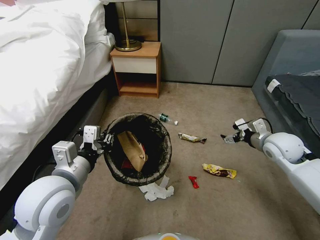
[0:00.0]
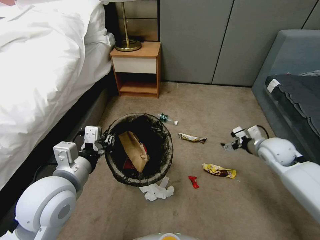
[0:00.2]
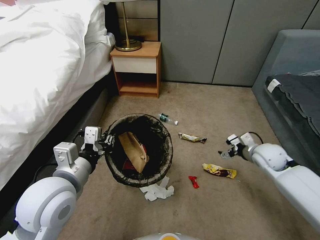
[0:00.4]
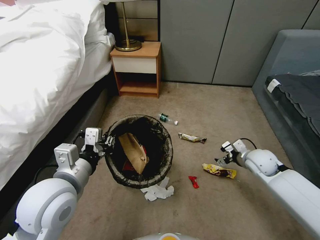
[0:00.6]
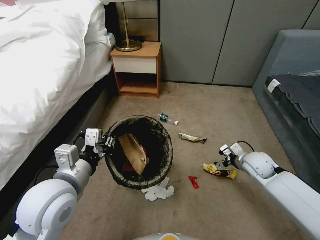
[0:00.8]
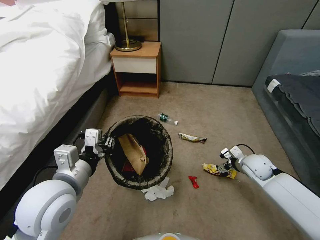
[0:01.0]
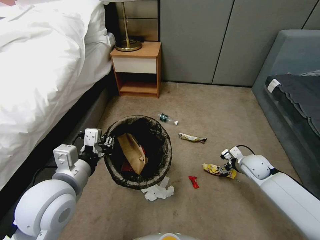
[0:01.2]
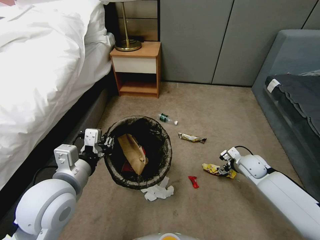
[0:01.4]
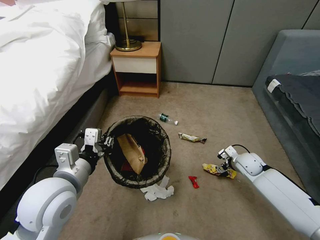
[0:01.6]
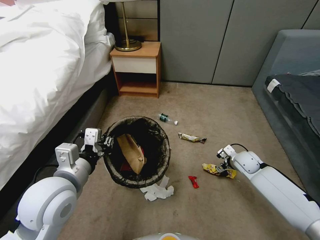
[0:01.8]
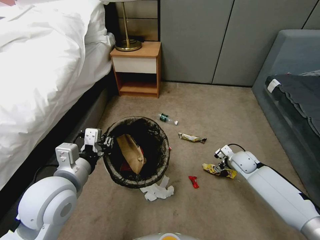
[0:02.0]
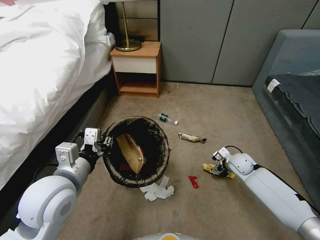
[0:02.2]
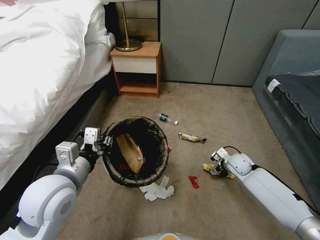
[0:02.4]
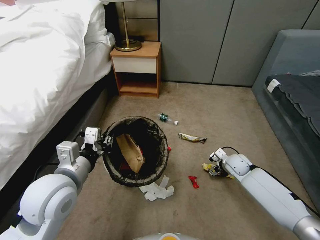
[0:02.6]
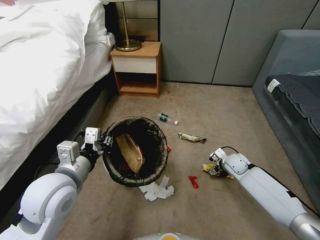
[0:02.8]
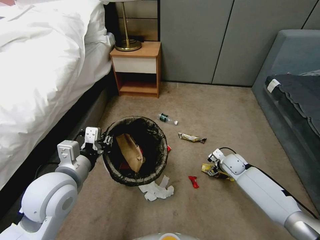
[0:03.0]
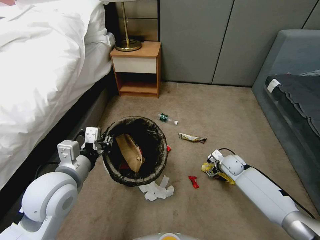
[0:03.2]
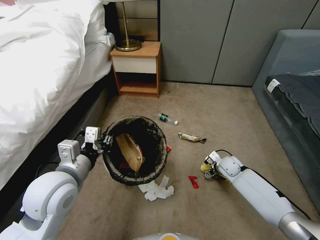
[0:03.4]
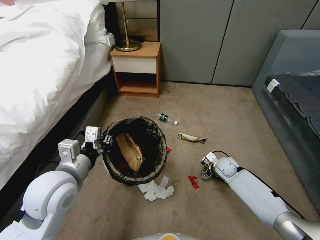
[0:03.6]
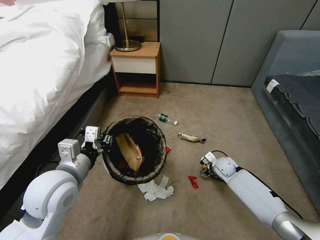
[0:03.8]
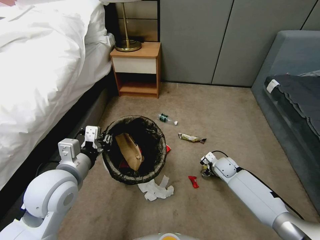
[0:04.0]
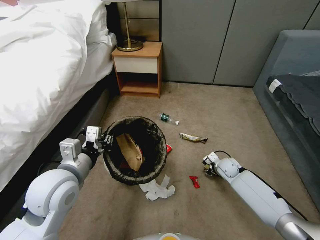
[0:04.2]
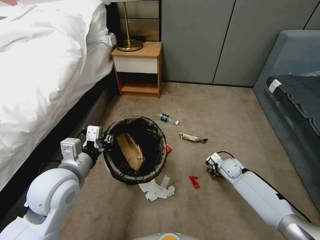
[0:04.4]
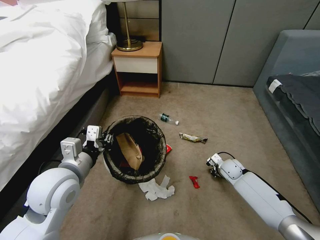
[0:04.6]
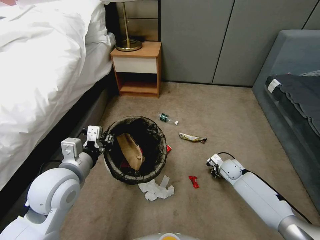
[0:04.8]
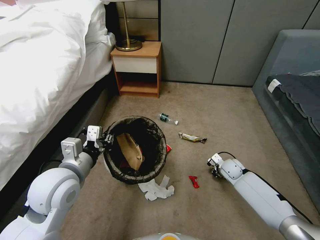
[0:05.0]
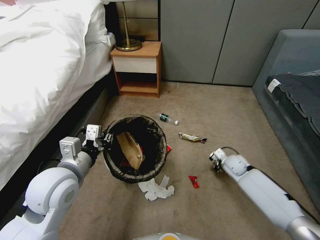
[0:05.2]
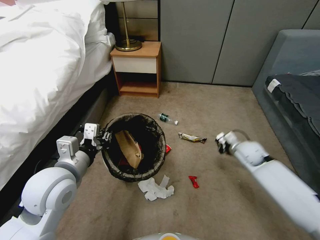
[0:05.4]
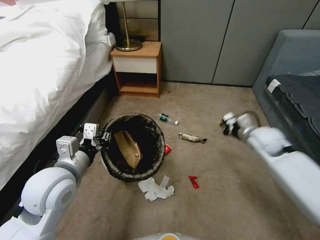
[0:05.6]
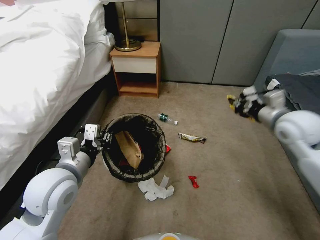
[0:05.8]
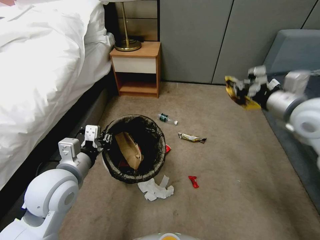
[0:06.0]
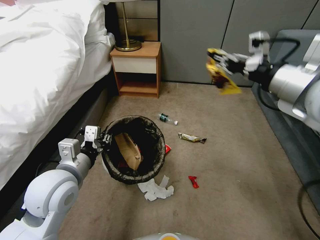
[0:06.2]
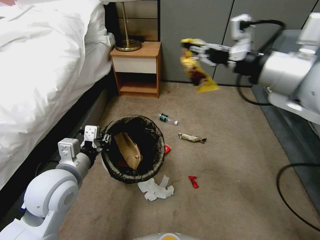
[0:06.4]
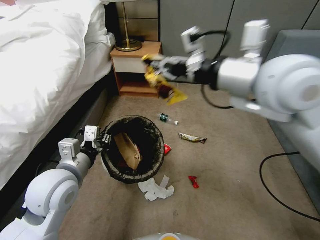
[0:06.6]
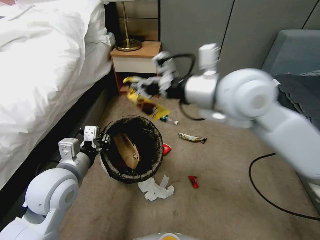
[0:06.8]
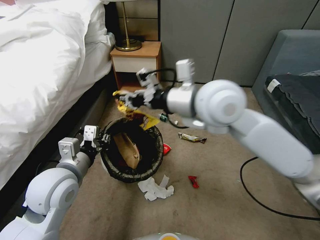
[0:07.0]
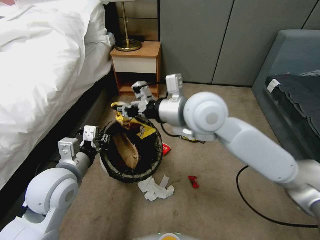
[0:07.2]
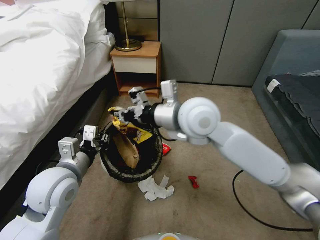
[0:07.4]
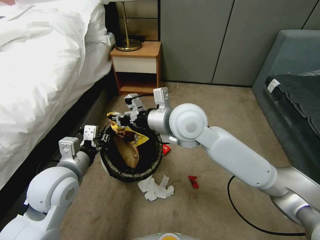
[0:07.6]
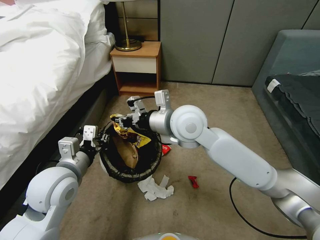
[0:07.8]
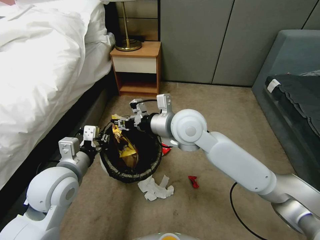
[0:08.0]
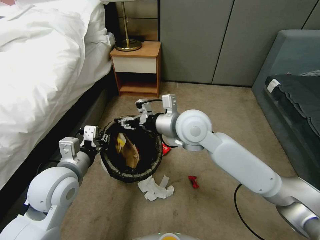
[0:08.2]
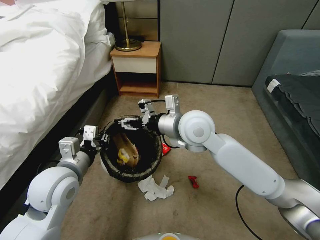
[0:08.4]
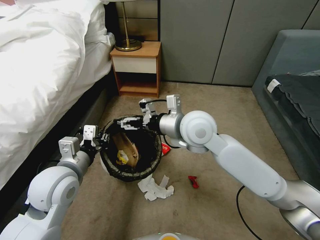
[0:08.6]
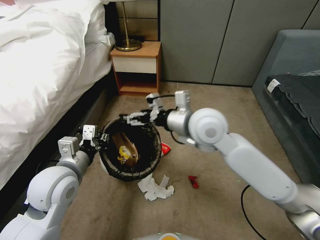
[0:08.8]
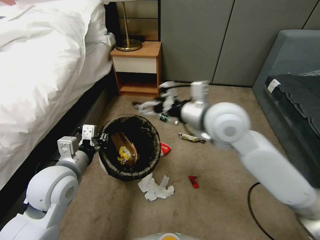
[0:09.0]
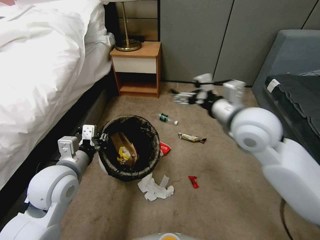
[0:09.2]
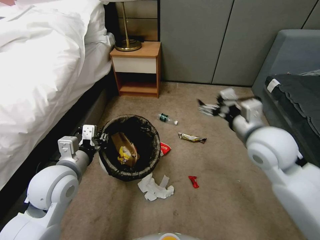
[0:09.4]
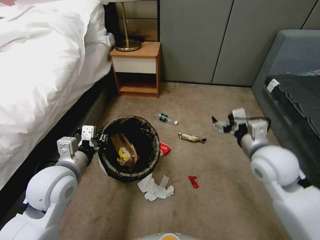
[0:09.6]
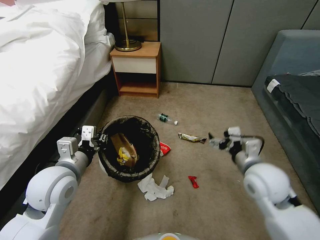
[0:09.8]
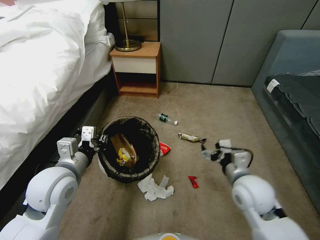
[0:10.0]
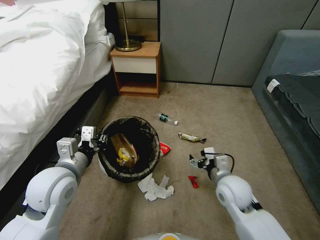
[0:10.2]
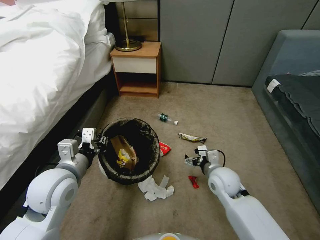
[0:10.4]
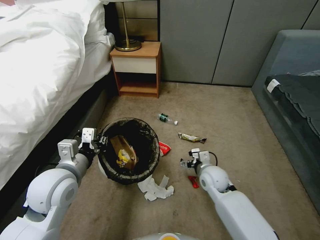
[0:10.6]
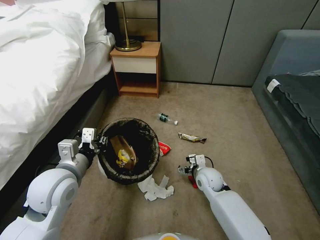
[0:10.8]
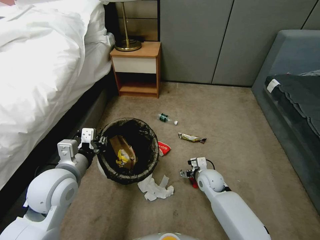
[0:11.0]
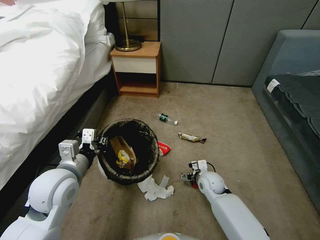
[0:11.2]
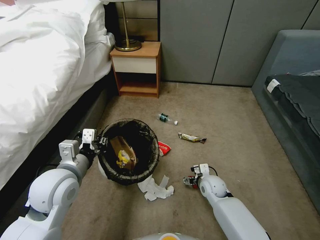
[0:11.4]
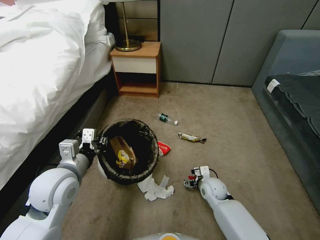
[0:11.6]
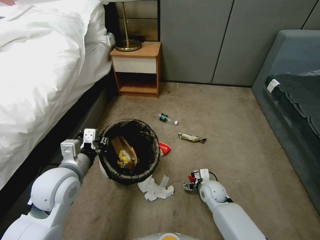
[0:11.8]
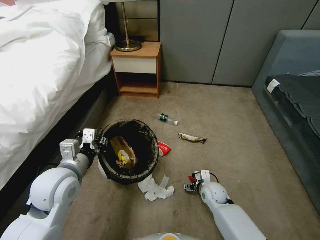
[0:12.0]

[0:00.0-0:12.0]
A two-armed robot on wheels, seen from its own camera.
Task of the whole recording: Pick up the trash bin, then pick up the garbage from the floor and place it into the trash bin.
0:00.0 to 0:01.6: The right gripper goes some 15 cm downward.
0:01.6 to 0:03.0: The right gripper shifts by some 5 cm.
0:03.0 to 0:04.4: The right gripper closes its fingers.
0:04.4 to 0:06.0: The right gripper moves upward, some 40 cm.
0:06.0 to 0:07.6: The right gripper travels to the left by approximately 30 cm.
0:07.6 to 0:09.0: The right gripper is displaced to the right by about 10 cm, and opens up.
0:09.0 to 0:10.4: The right gripper heads downward, covering roughly 25 cm.
0:10.4 to 0:12.0: The right gripper is displaced downward by roughly 15 cm.

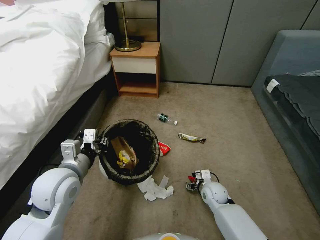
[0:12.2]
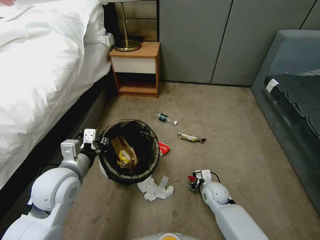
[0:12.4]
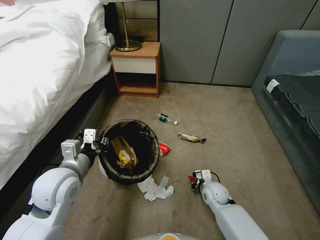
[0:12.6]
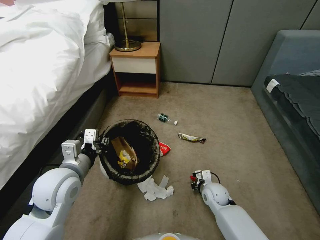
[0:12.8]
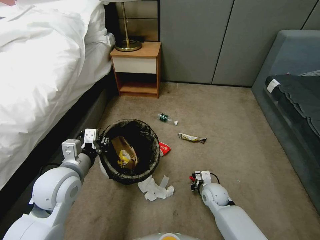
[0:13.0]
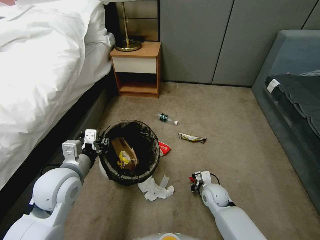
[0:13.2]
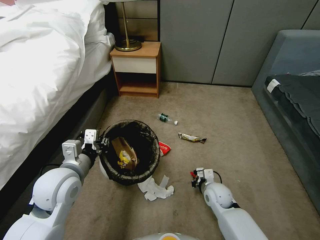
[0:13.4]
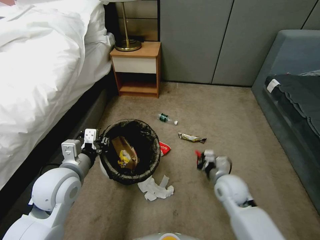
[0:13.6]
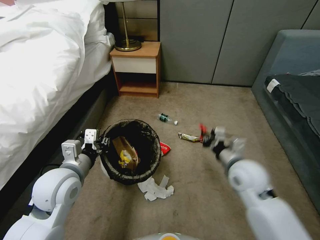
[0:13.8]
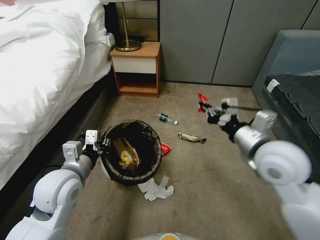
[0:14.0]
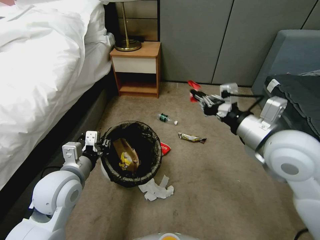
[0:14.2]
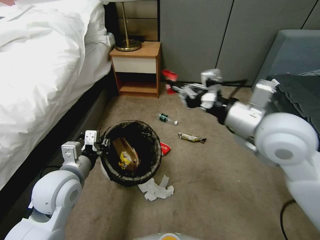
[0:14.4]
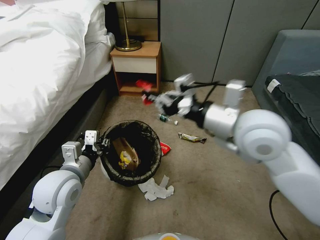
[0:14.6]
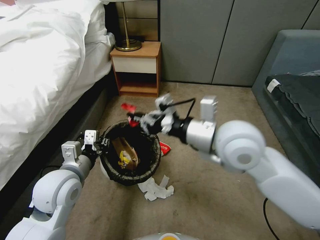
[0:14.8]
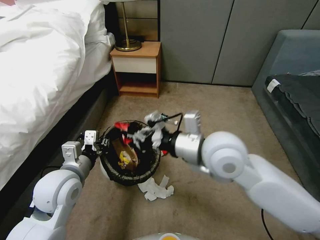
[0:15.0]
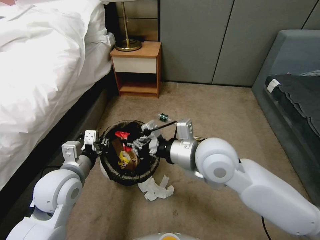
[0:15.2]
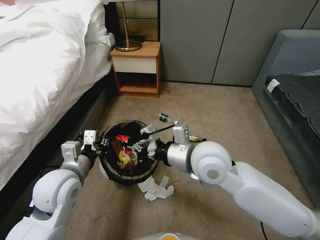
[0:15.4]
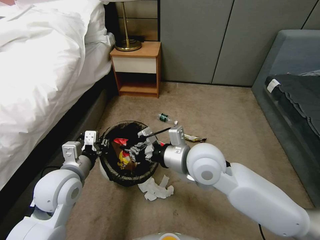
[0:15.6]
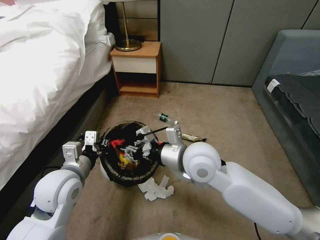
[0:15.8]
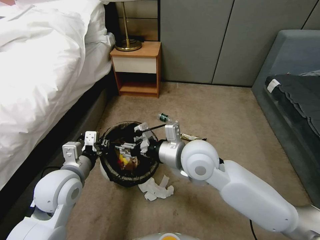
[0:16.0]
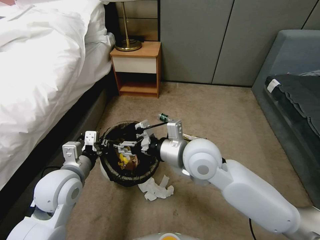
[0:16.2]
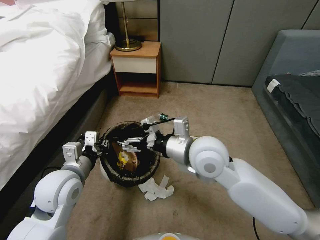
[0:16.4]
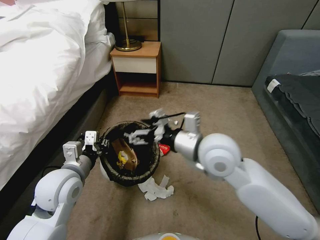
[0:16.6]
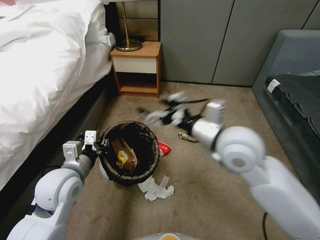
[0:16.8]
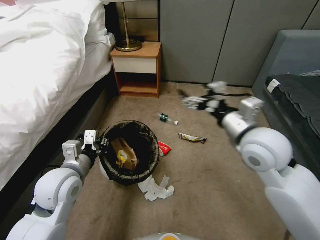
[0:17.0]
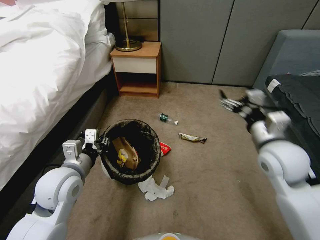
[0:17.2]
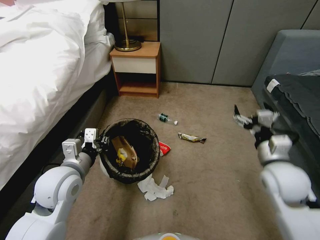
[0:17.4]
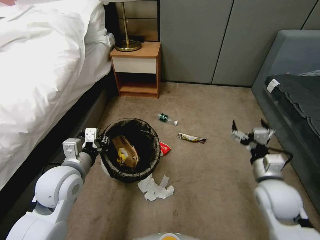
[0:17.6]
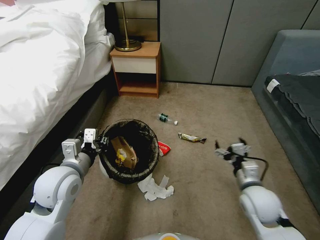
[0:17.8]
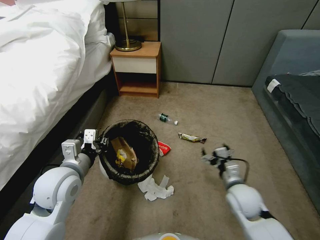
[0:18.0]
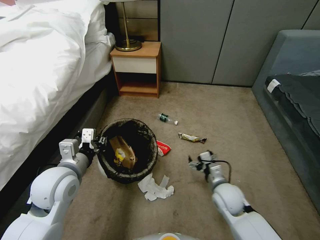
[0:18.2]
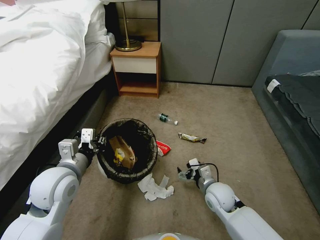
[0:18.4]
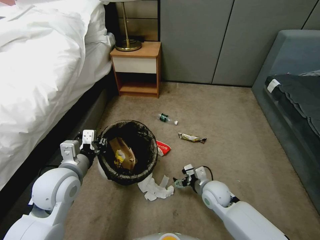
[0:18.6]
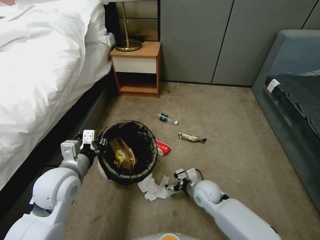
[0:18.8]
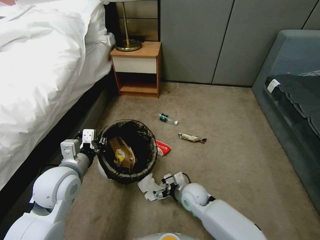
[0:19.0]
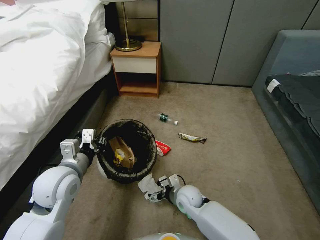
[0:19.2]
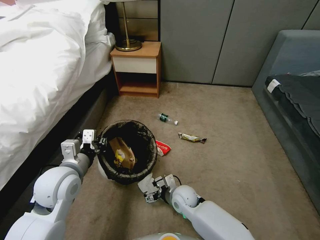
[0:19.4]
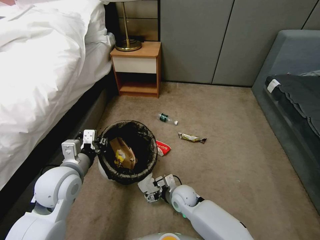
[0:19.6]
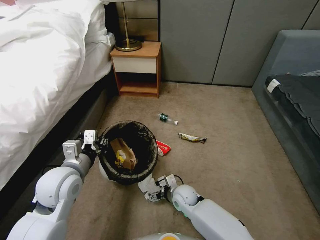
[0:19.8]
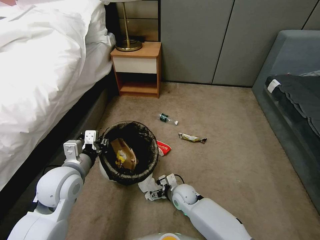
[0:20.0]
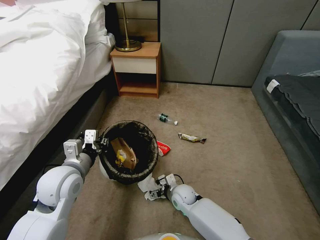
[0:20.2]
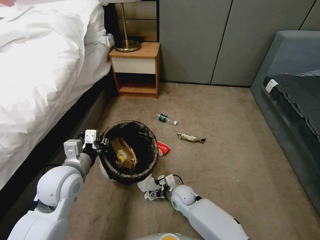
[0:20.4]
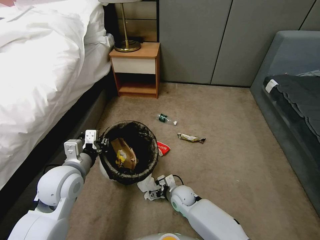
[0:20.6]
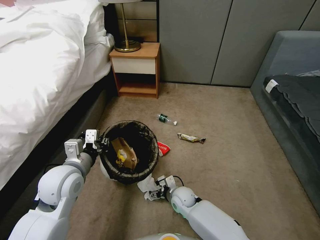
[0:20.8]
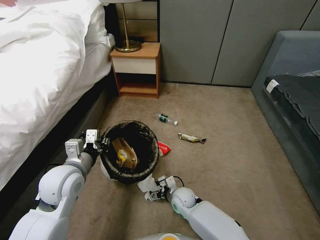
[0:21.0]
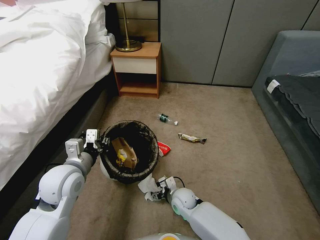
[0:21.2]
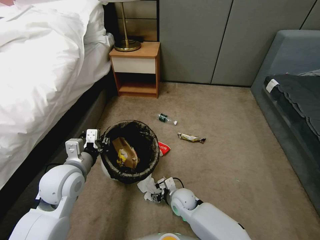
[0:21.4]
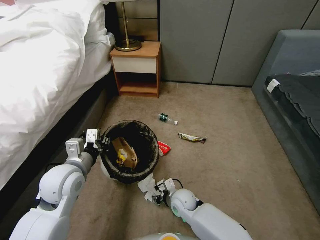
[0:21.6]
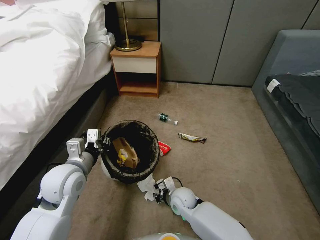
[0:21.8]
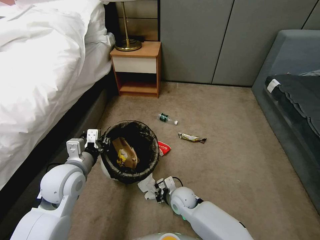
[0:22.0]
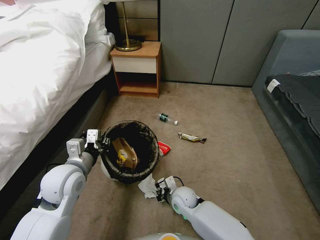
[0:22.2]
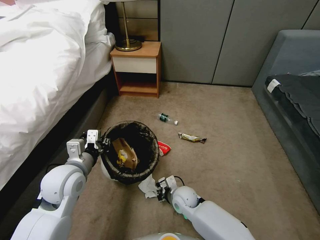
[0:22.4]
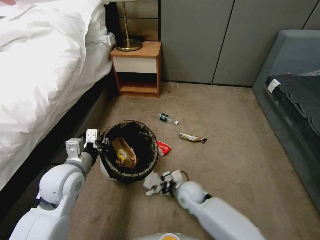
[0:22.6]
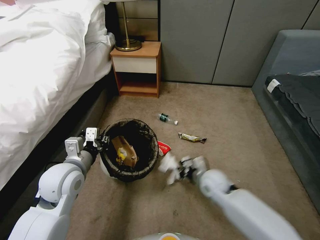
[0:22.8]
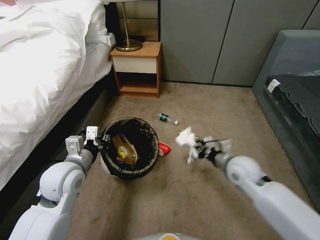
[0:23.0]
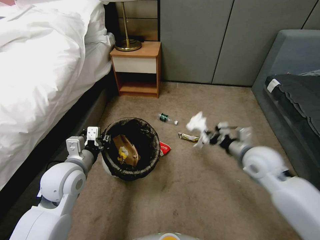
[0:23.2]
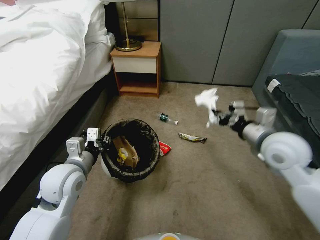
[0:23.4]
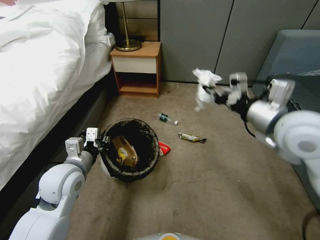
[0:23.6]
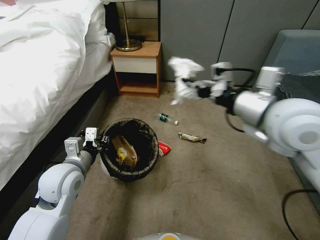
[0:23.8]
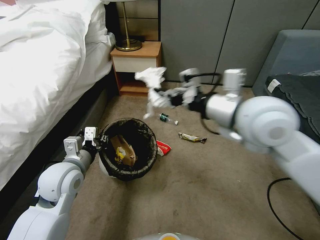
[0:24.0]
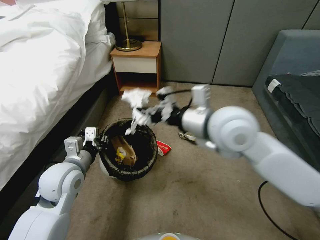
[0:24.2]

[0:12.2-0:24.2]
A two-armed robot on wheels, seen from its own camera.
Task of the whole recording: Pick up the trash bin, then pick up the garbage from the floor and place it into the trash bin.
0:12.2 to 0:13.8: The right gripper shifts about 25 cm upward, and closes up.
0:13.8 to 0:15.2: The right gripper goes some 15 cm to the left and upward.
0:15.2 to 0:16.6: The right gripper opens its fingers.
0:16.6 to 0:18.2: The right gripper travels downward by about 25 cm.
0:18.2 to 0:19.8: The right gripper travels to the left and downward by approximately 15 cm.
0:19.8 to 0:21.2: The grippers stay close to where they were, moving slightly.
0:21.2 to 0:22.6: The right gripper shifts about 5 cm upward, and closes.
0:22.6 to 0:24.2: The right gripper travels upward by approximately 40 cm.
